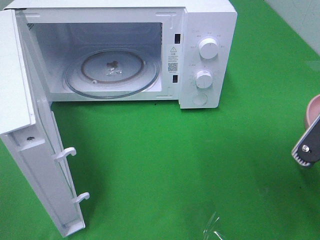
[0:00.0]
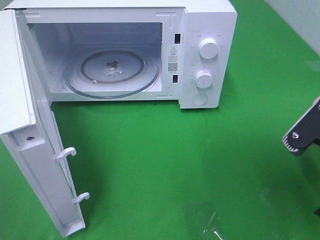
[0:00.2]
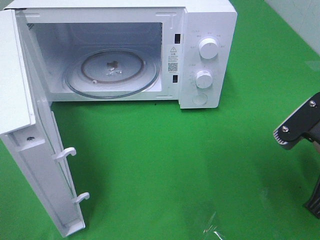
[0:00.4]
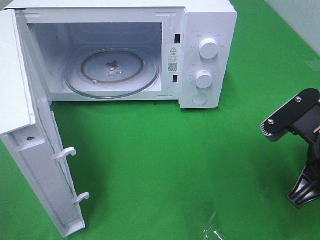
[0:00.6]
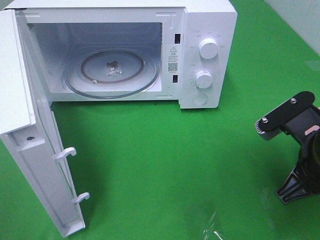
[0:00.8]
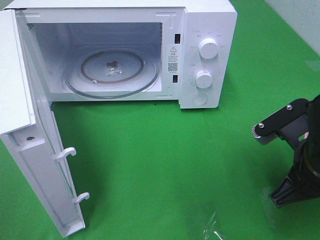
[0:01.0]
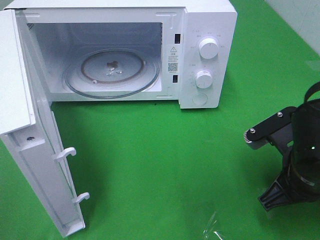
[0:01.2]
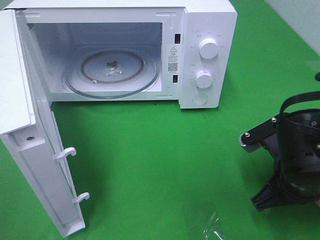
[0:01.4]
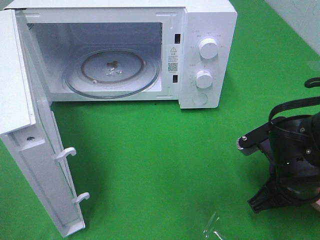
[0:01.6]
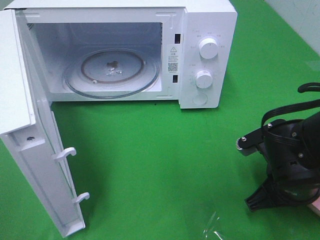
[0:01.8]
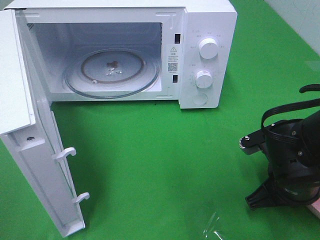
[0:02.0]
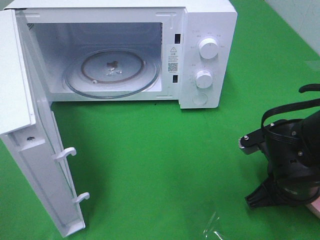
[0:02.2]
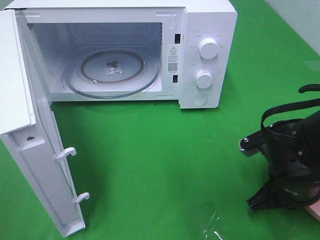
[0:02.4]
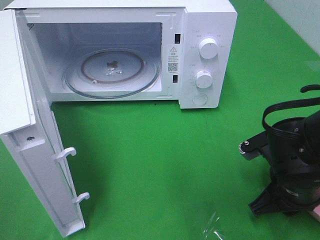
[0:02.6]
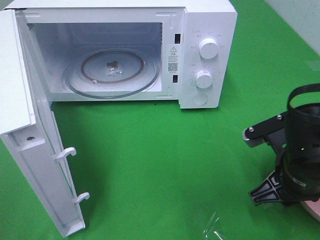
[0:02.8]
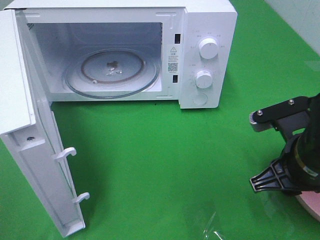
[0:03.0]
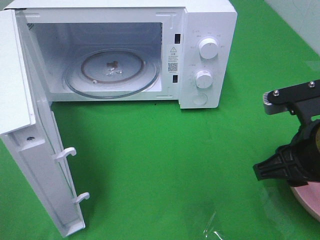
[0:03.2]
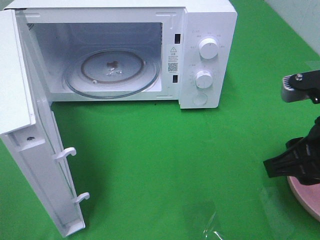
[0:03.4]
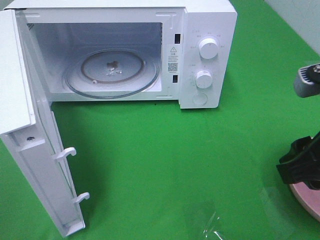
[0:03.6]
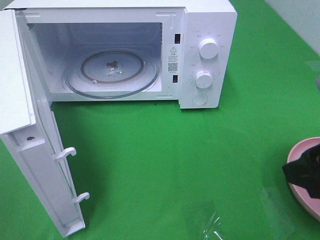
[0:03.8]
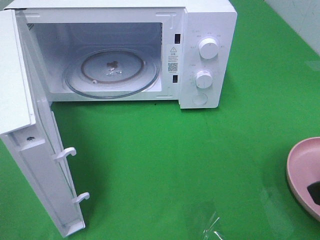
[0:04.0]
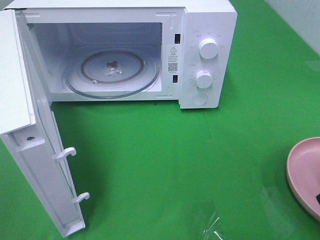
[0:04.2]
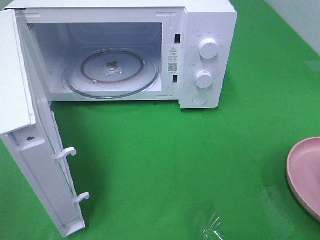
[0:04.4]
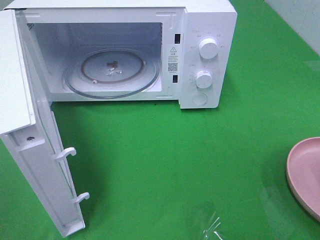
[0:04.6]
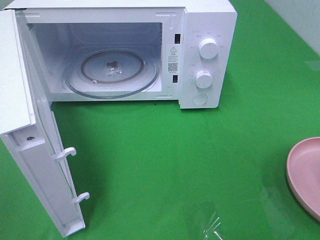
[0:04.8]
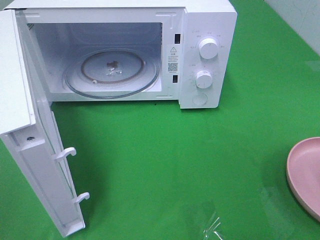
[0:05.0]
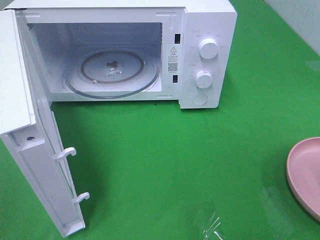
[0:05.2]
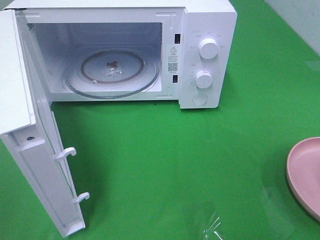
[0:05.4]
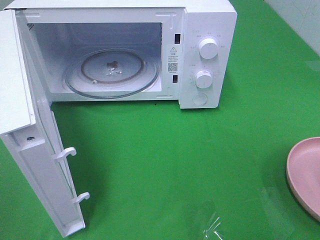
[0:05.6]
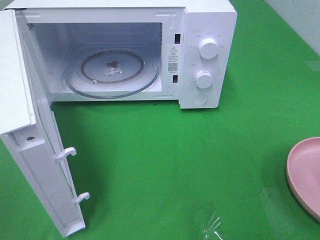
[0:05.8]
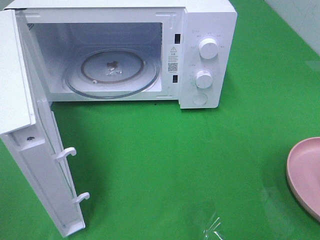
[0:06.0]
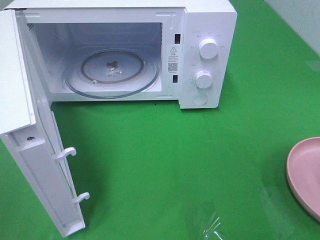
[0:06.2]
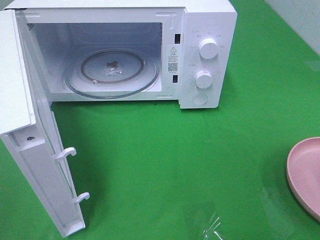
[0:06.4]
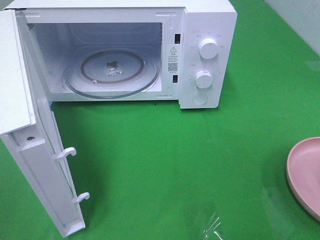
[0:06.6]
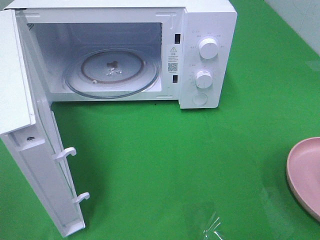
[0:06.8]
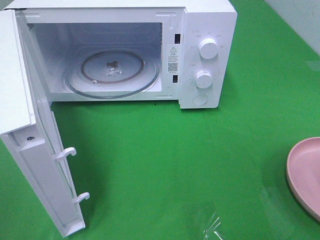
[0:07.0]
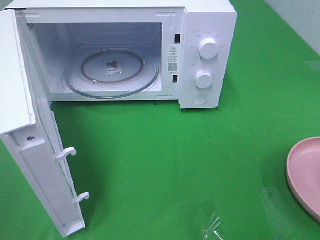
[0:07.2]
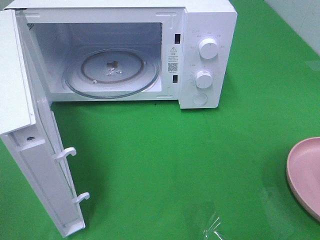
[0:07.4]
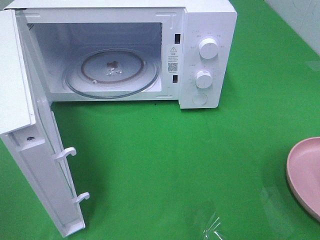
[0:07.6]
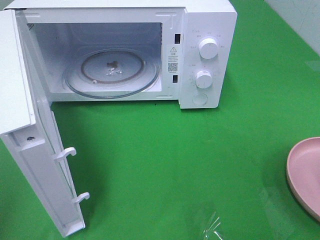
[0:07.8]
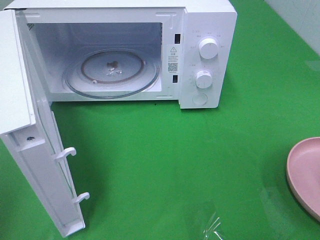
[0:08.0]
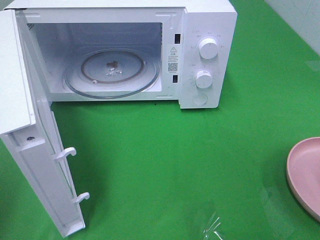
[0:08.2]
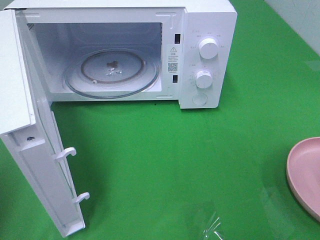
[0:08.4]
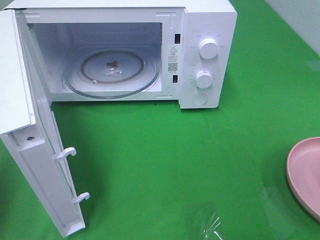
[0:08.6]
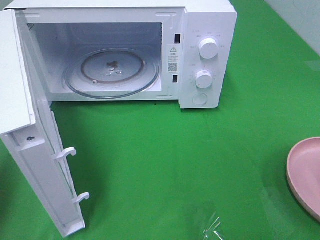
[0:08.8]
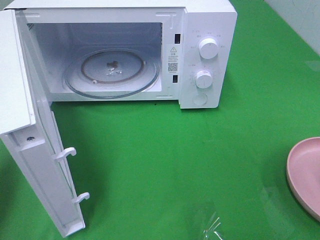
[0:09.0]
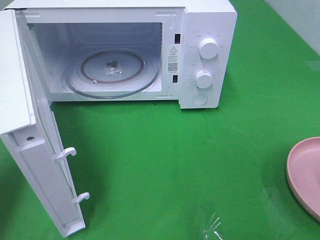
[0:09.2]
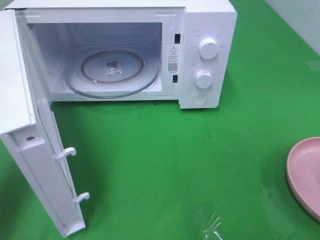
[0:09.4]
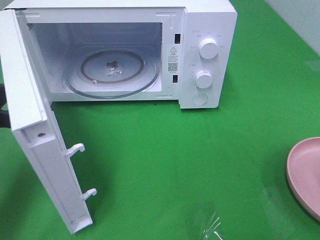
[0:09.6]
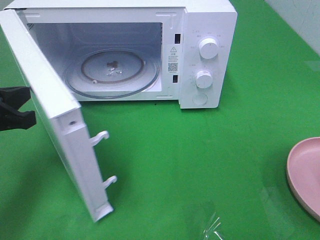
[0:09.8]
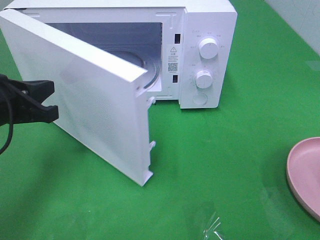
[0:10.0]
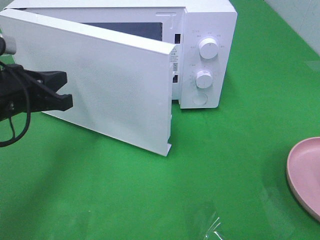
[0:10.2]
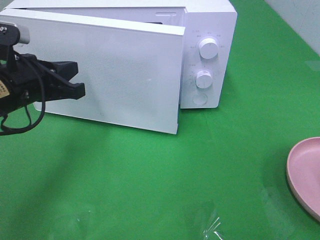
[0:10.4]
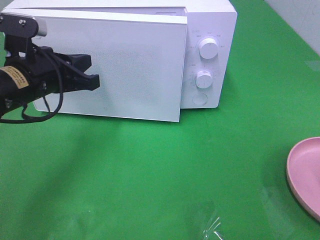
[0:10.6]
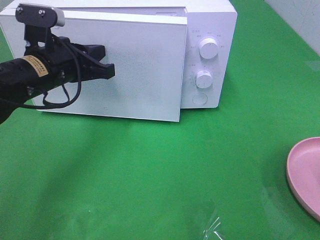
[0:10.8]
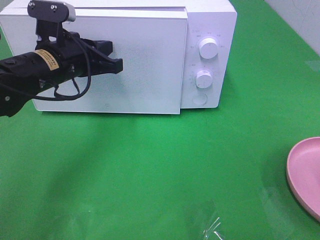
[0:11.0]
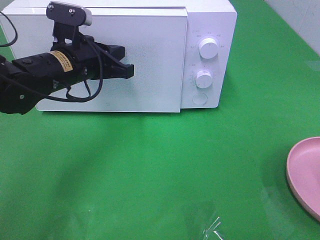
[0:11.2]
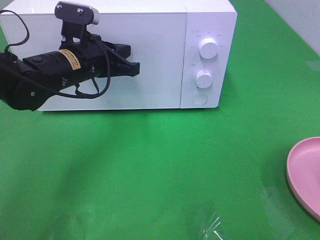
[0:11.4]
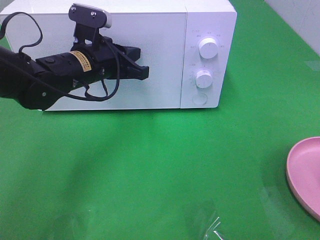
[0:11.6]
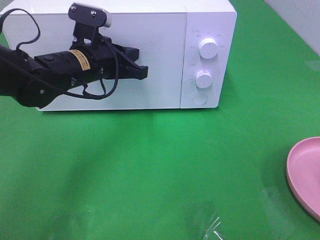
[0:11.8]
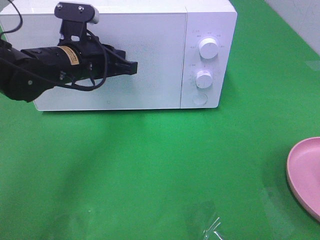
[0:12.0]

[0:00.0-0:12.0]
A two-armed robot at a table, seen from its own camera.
Task of the whole recording: Heat the burger.
Step, 0:00.0 to 0:03.0: Right hand: place the plate on the table.
0:00.0 to 0:01.6: The right gripper travels downward and forward by some 10 cm.
0:01.6 to 0:03.0: The right gripper opens.
0:03.0 to 0:04.4: The right gripper goes about 15 cm upward, backward and to the right.
0:07.6 to 0:09.0: The left gripper heads forward and downward, covering approximately 15 cm, and closes its fingers.
0:09.0 to 0:10.4: The left gripper goes about 15 cm to the right and forward.
0:10.4 to 0:12.0: The left gripper shifts about 10 cm to the right and forward.

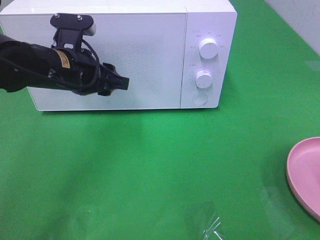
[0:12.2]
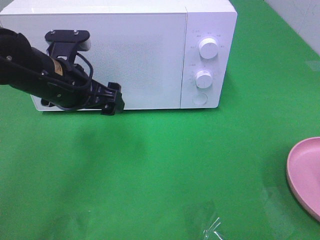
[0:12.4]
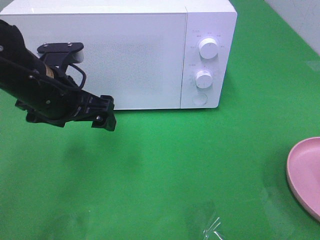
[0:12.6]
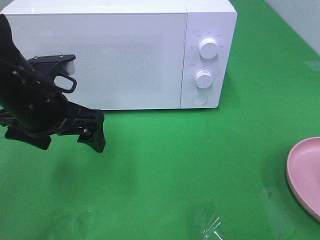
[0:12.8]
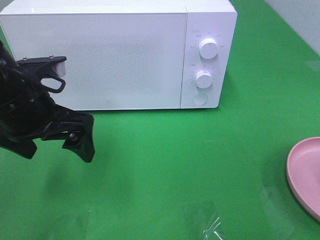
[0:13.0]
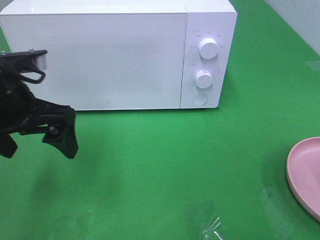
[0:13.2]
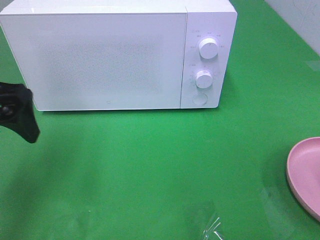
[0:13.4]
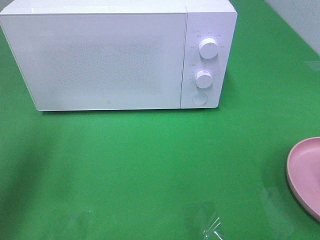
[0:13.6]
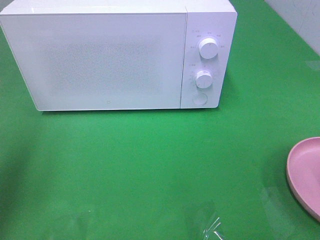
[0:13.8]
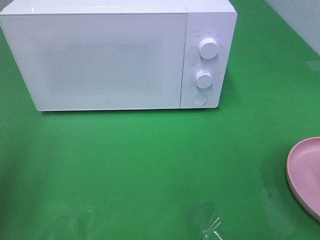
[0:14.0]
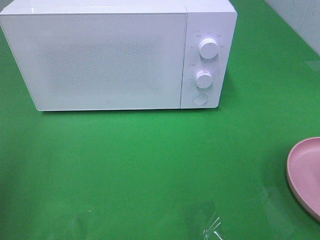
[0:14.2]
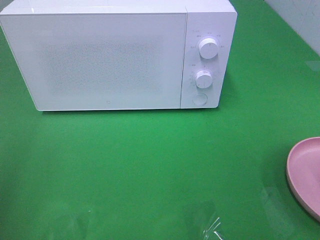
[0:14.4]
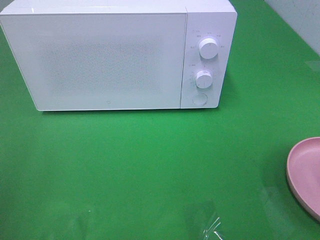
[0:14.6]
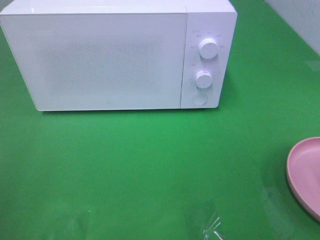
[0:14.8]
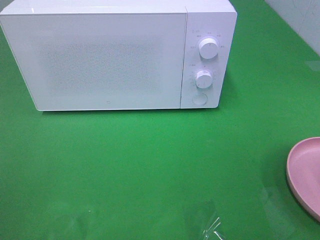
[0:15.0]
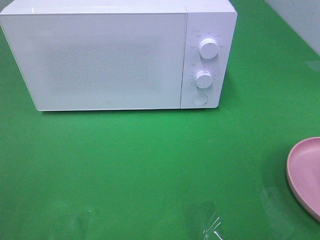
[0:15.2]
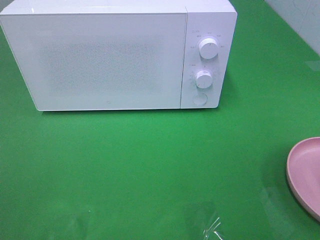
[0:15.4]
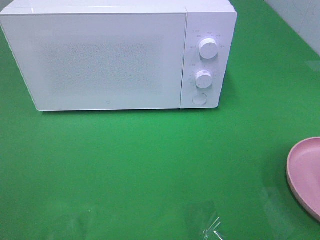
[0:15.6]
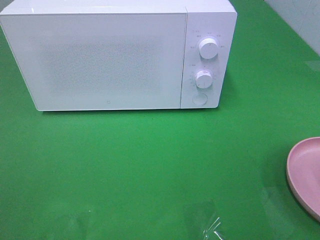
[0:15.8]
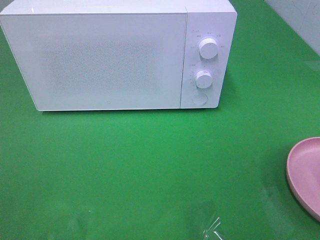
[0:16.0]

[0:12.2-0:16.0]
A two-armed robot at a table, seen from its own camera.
Task of the whole recording: Heat the burger.
0:12.2 to 0:13.4: The left gripper is displaced to the left, backward and upward by about 15 cm, and opens its fingers.
0:13.4 to 0:14.8: The left gripper shifts some 20 cm backward and to the left.

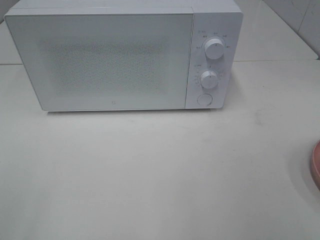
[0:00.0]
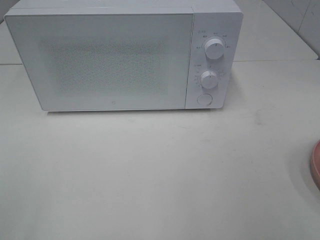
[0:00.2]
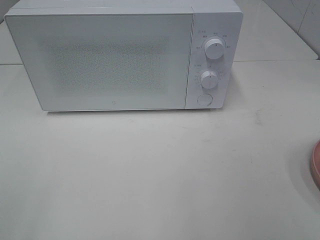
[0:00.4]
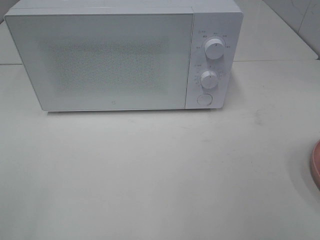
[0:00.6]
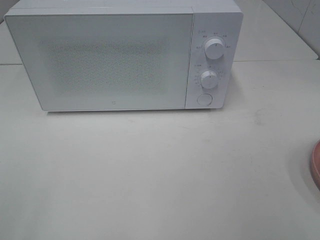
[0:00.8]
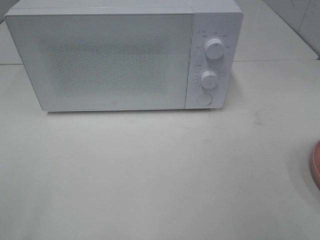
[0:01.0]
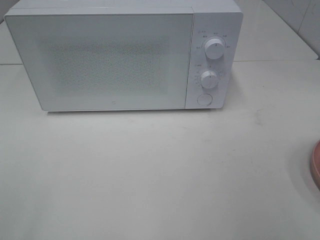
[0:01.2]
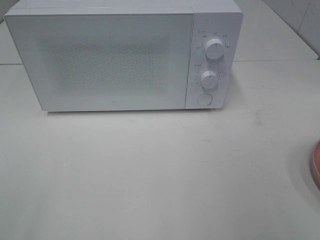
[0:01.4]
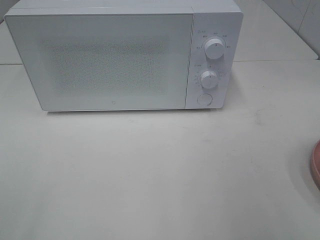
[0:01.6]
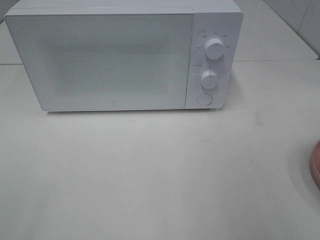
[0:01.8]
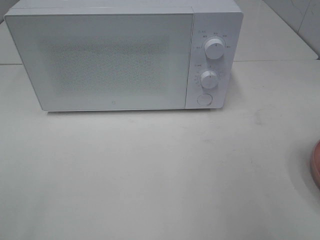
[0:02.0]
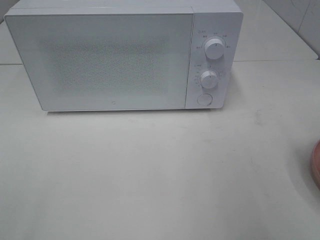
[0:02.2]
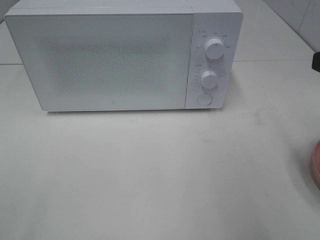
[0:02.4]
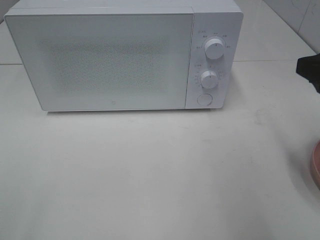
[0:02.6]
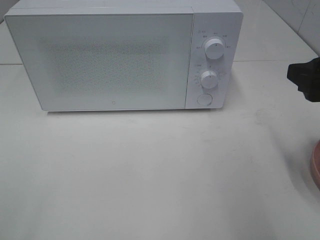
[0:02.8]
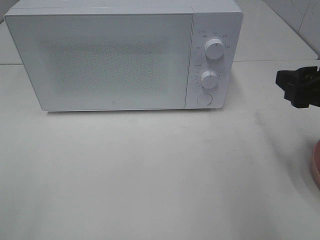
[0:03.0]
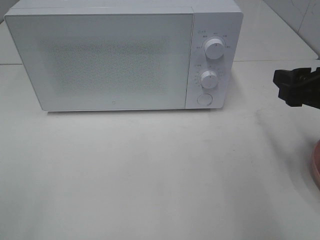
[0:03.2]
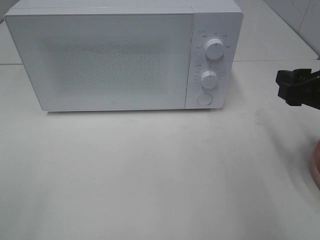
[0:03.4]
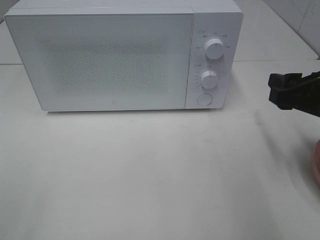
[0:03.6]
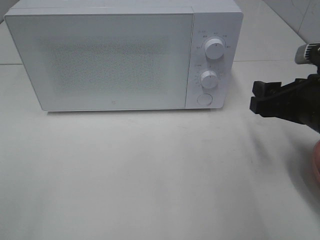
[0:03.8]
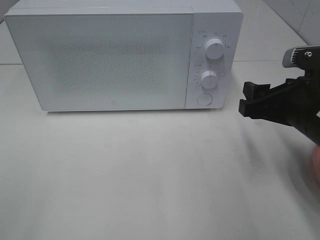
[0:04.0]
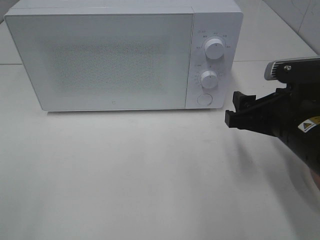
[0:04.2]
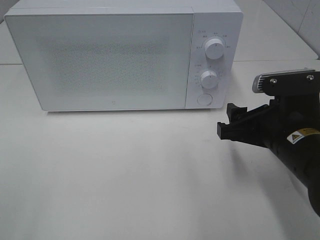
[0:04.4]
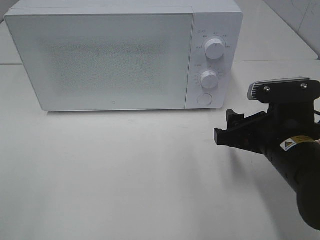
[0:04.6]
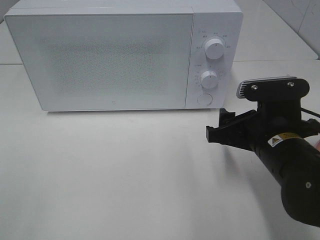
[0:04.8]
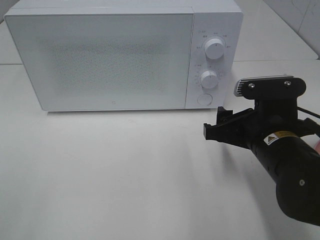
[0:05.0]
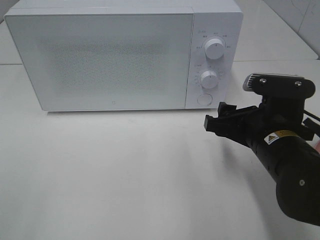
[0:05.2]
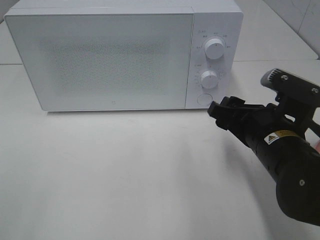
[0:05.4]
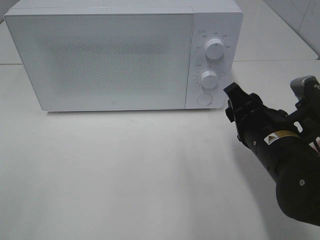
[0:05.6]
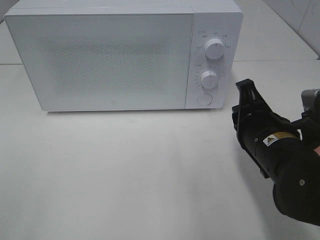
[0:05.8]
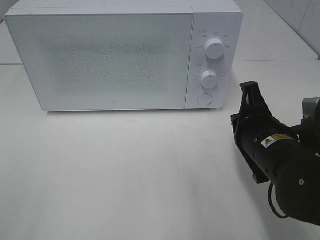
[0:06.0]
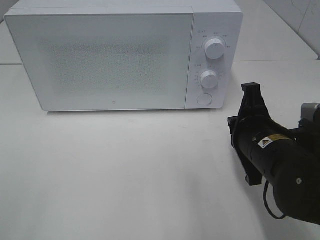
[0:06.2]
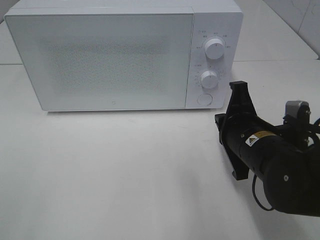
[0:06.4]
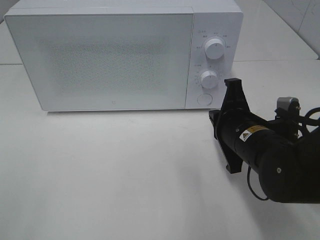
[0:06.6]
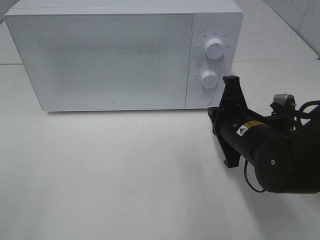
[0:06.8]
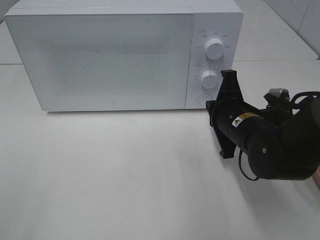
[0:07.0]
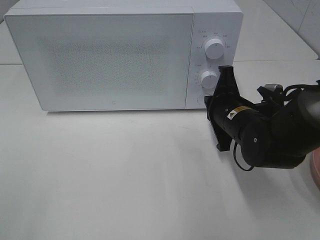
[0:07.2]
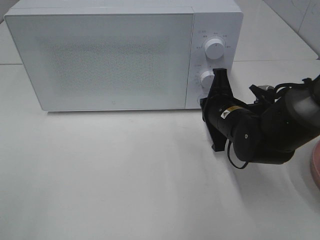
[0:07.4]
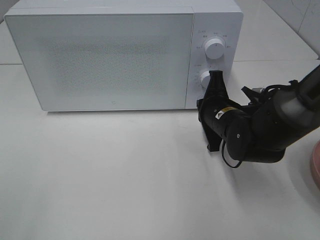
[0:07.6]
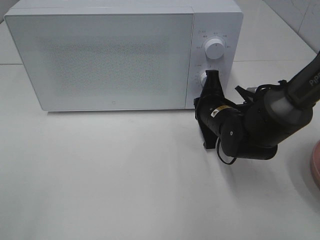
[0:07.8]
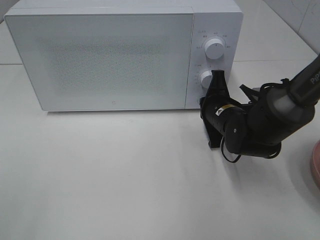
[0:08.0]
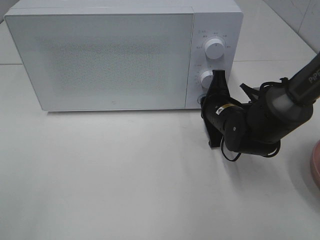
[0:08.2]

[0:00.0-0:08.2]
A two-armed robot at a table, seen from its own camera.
Task of the whole recording: Heat the burger.
0:01.6 to 0:03.2: The right gripper moves forward and downward, approximately 15 cm.
0:03.2 to 0:05.0: The right gripper goes roughly 10 cm to the left and downward.
0:05.0 to 0:06.6: The right gripper closes its fingers.
0:06.6 to 0:08.2: The right gripper moves forward, some 10 cm.
